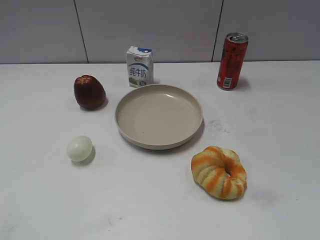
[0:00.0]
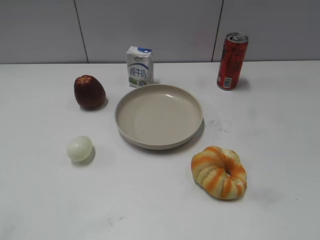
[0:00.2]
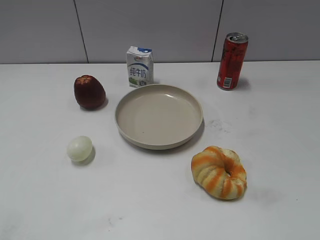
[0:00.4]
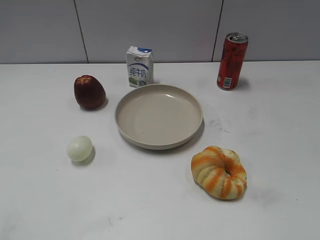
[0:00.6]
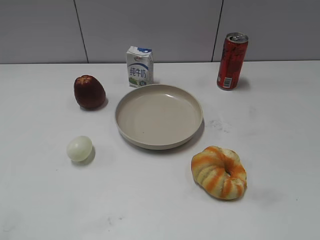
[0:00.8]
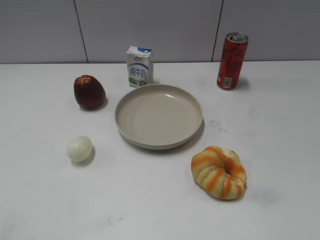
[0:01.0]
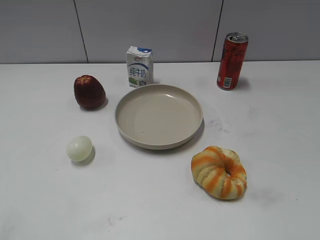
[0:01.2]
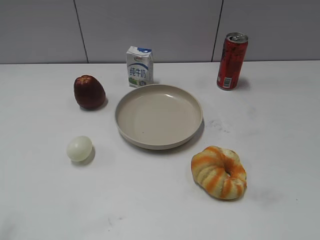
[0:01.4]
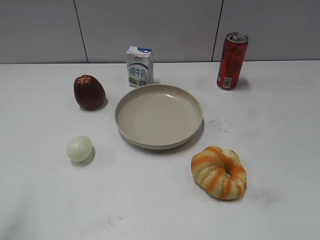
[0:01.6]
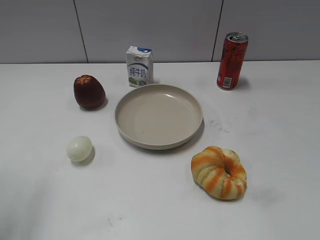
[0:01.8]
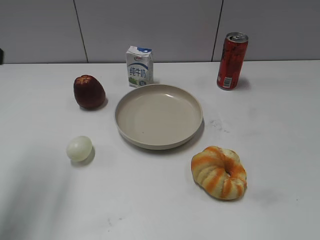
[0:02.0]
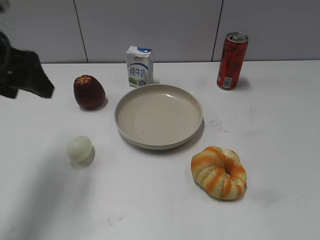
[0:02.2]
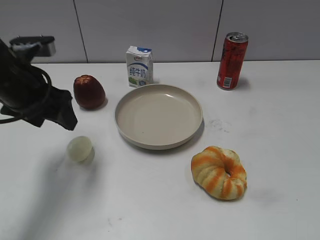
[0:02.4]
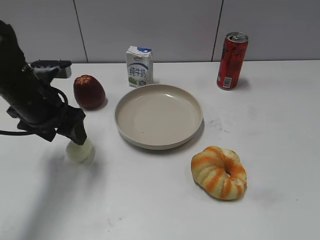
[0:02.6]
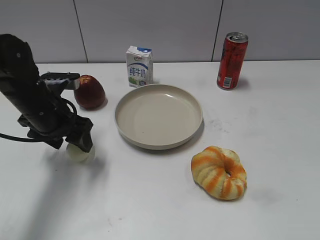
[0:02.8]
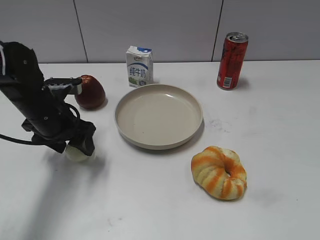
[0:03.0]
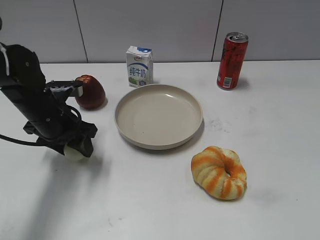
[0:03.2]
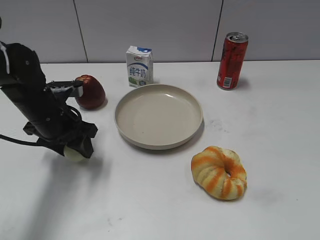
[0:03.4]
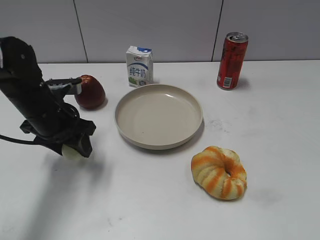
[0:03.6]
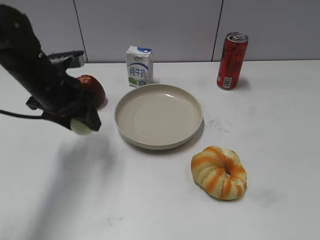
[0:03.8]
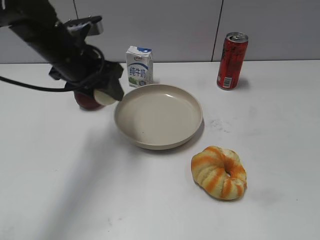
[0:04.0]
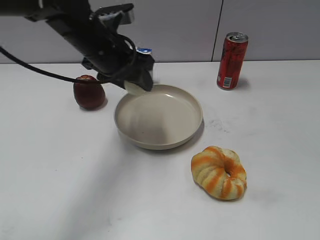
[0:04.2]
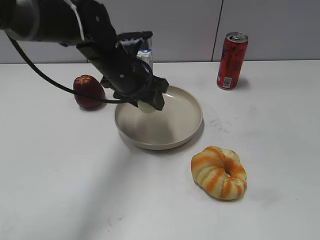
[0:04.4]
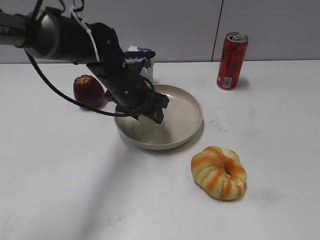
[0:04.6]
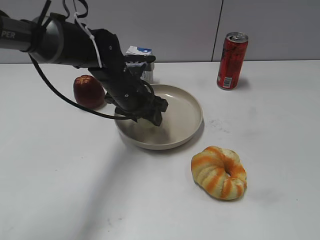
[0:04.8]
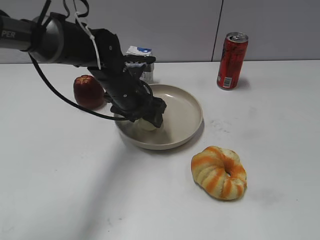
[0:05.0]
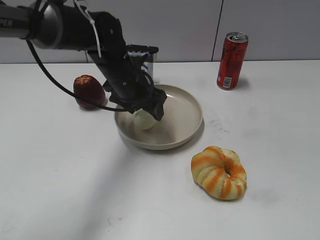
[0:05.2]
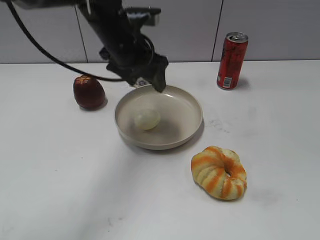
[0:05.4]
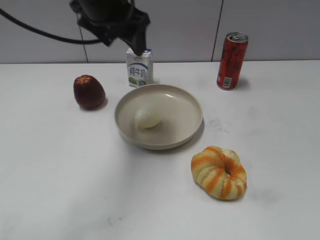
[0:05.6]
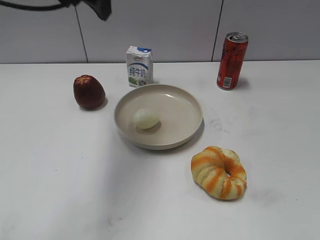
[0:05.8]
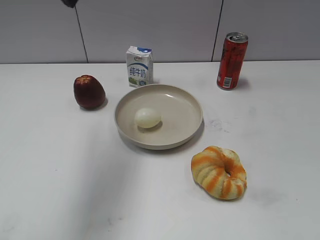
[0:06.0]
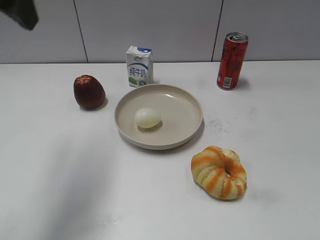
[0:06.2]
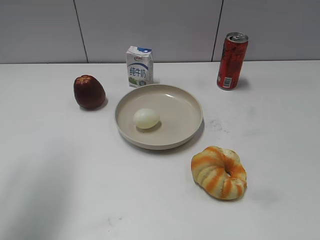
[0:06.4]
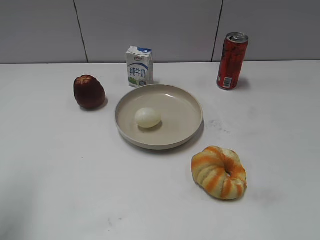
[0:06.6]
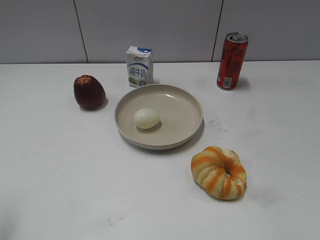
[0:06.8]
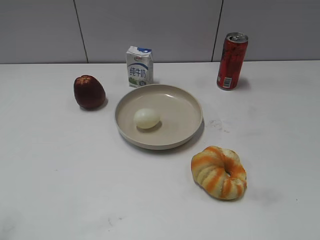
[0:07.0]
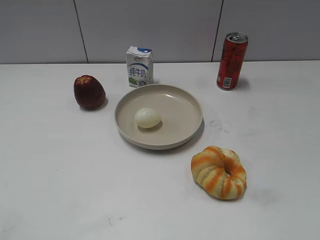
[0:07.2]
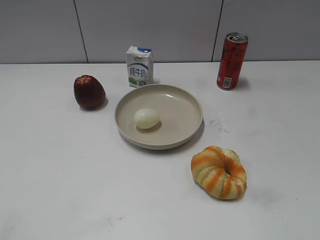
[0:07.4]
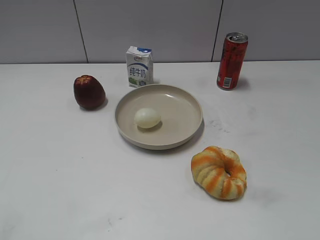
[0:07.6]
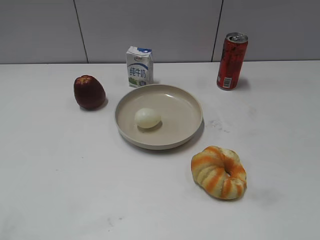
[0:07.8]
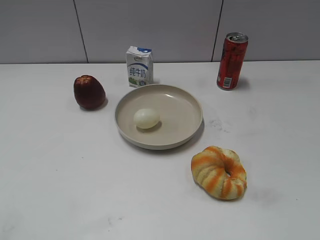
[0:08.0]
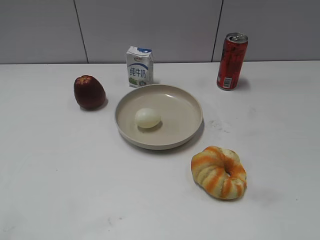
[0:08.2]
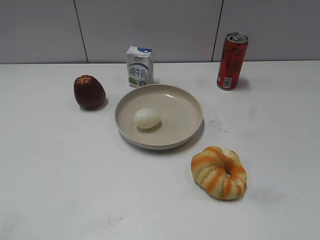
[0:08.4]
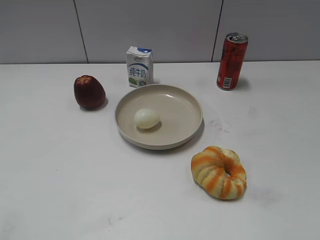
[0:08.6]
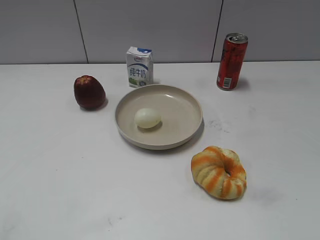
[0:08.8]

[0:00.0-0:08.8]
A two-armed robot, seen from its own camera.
0:01.4 to 0:03.0: The left gripper moves forward, downward and to the right, about 35 cm.
0:03.0 to 0:04.4: The left gripper heads to the right and upward, covering some 15 cm, and closes its fingers.
0:04.4 to 0:05.8: The left gripper heads upward, covering approximately 15 cm, and opens up.
0:05.8 to 0:07.4: The left gripper moves backward and to the left, roughly 40 cm.
